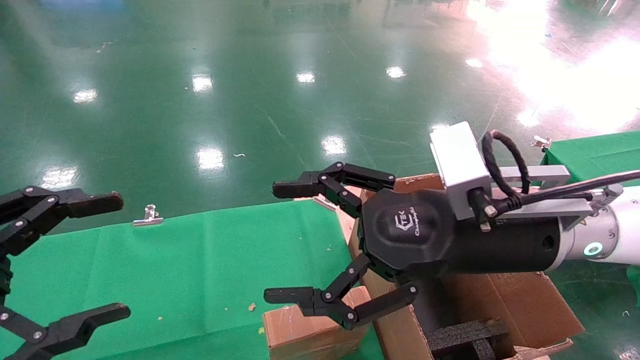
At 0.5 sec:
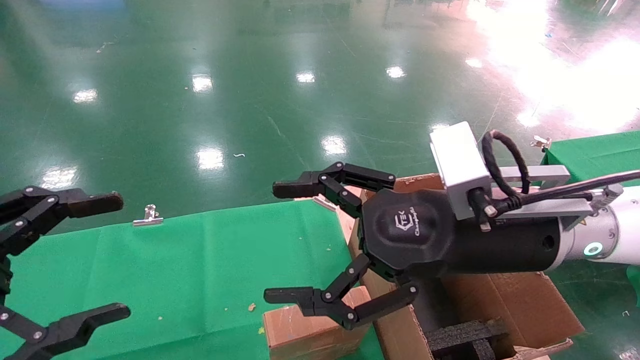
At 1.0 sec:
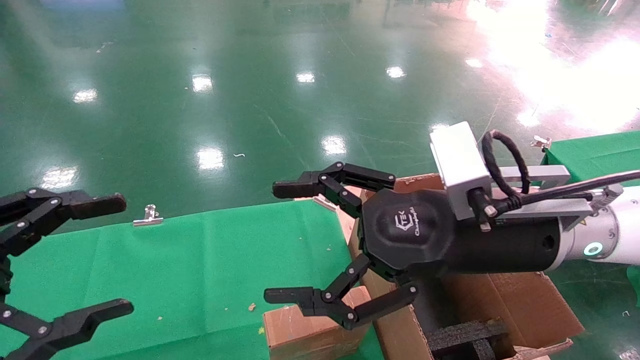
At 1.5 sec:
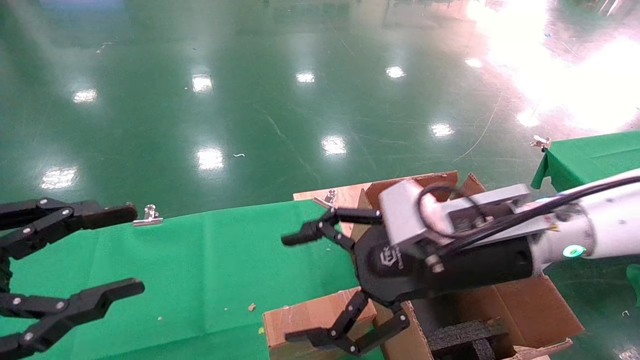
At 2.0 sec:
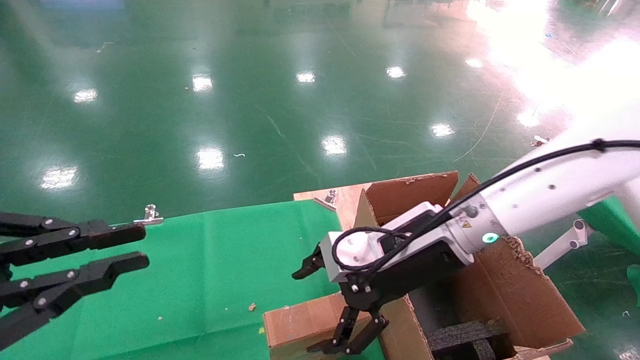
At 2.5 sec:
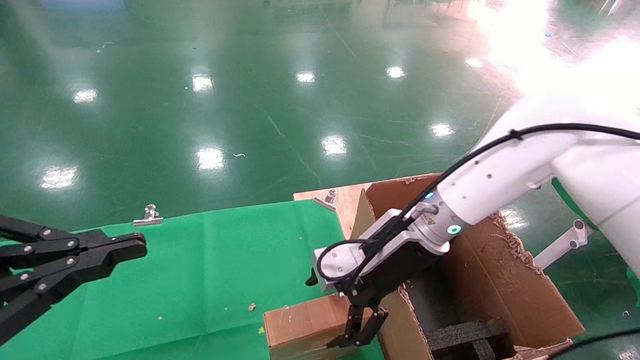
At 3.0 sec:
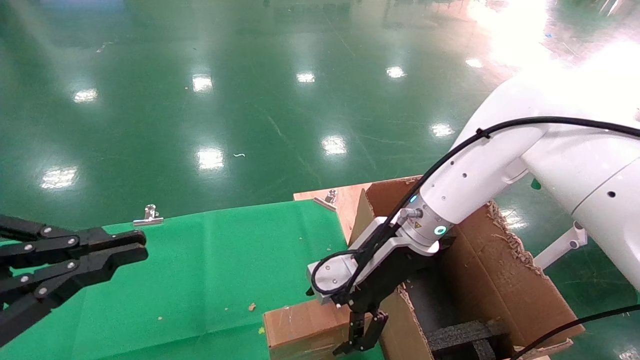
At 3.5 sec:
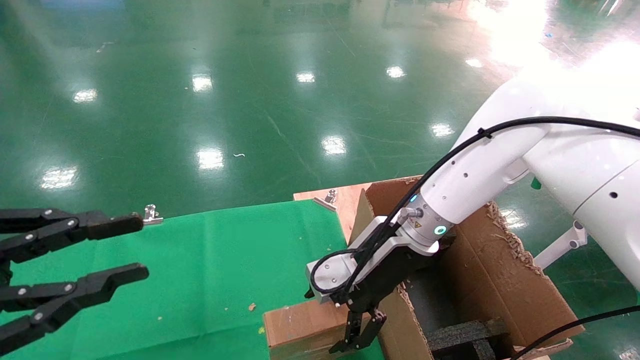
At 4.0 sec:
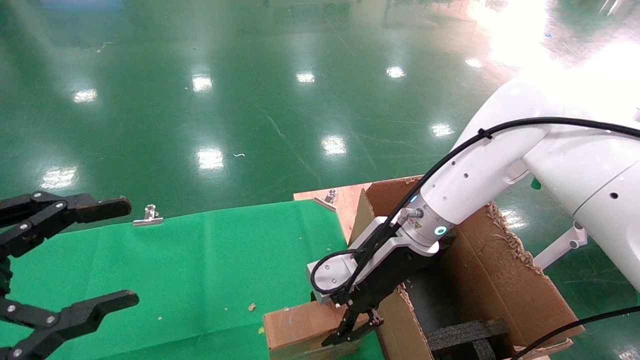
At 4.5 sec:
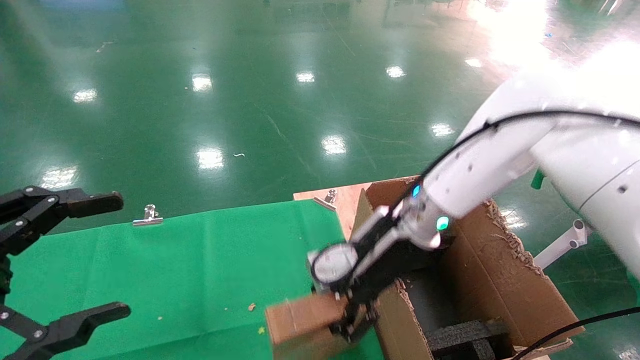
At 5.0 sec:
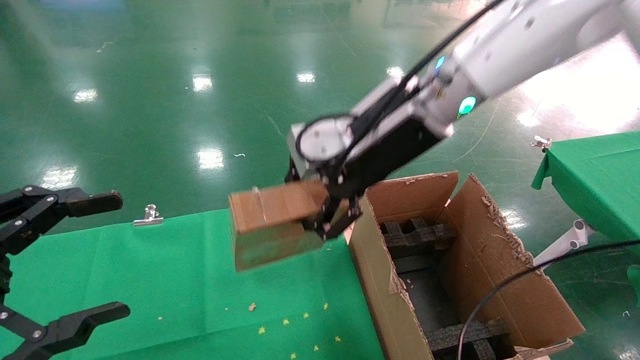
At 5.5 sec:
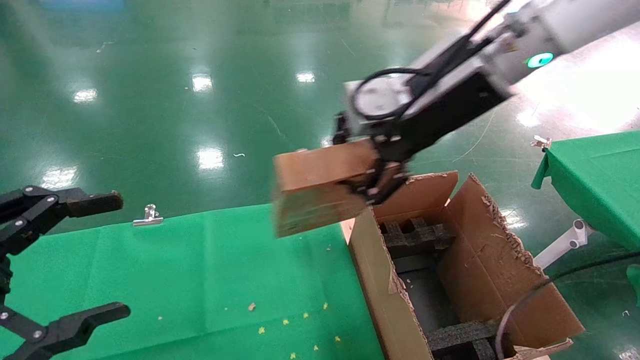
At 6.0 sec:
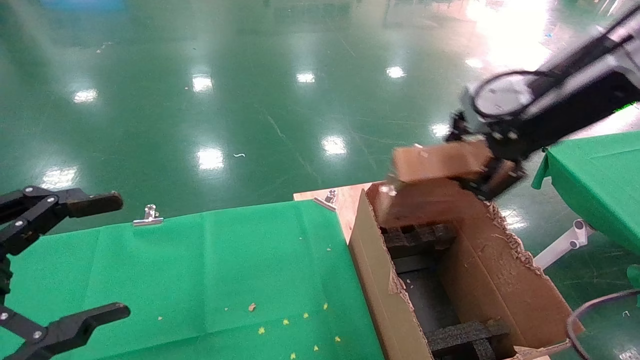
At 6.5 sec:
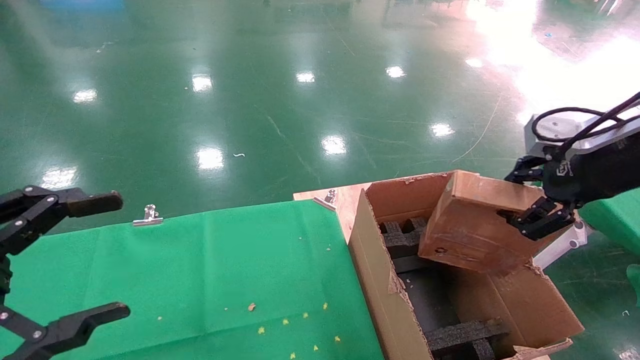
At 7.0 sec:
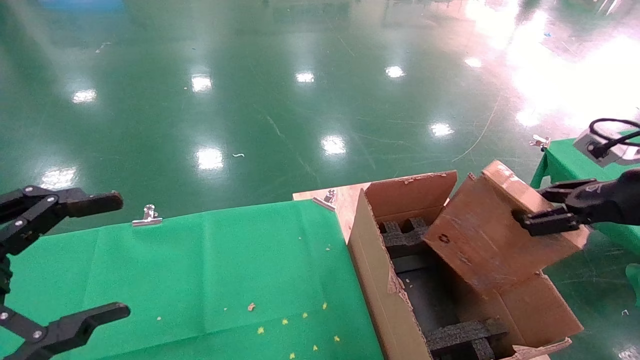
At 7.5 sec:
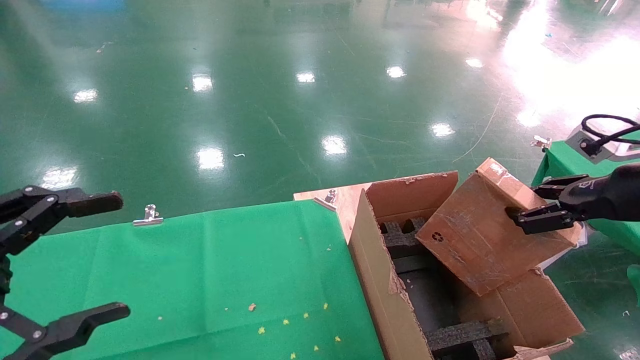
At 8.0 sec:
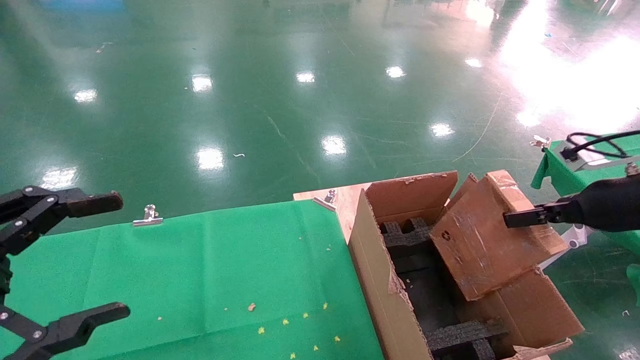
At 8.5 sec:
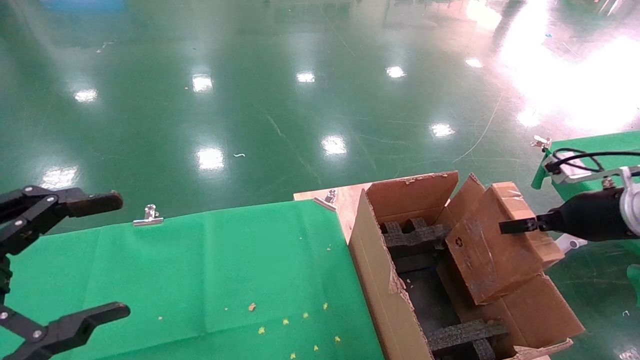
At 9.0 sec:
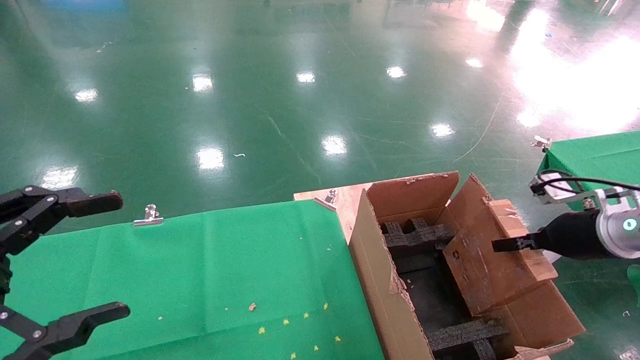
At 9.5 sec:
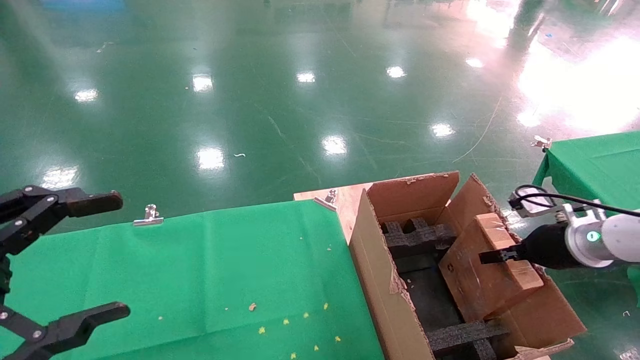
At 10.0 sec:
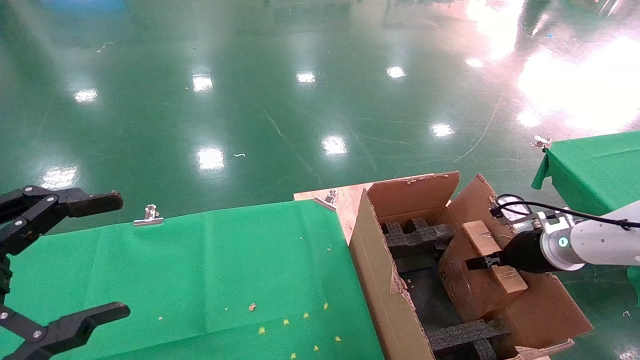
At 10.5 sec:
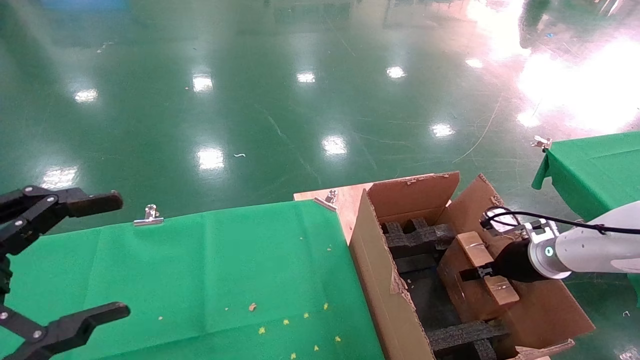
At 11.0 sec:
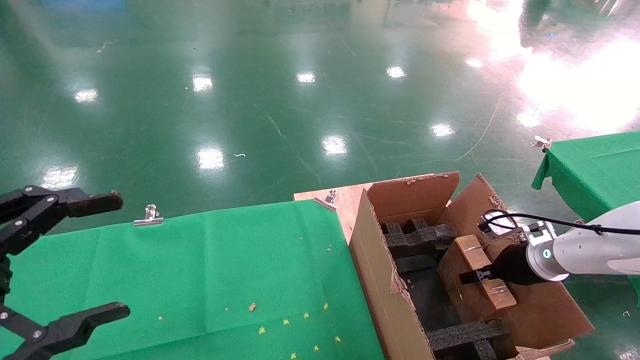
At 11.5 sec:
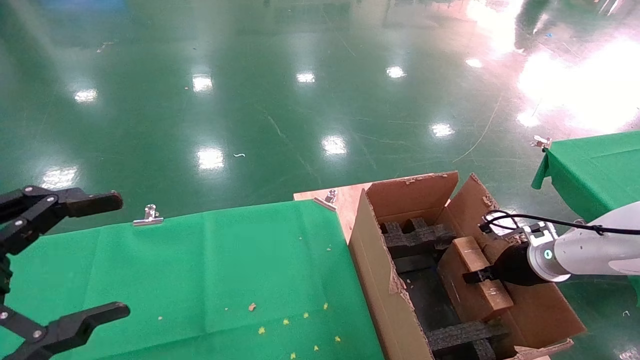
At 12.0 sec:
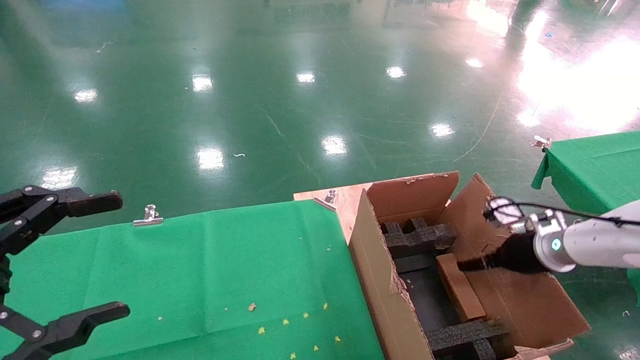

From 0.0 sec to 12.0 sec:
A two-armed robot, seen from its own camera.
Task of the whole recording: using a robotic arm to pick up a cardboard box and palace it the carton.
Step, from 1.5 sec to 4.0 sec: Pick up the mouse and the power cord paper box.
From 0.0 sec to 2.0 sec: The right gripper moves forward, roughly 5 cm; the left gripper closes its fingers.
From 2.0 sec to 4.0 sec: The right gripper moves forward, approximately 5 cm, and closes, while the left gripper closes, then opens again.
From 4.0 sec to 6.0 sec: The right gripper is displaced upward and to the right by roughly 25 cm, and closes.
From 6.0 sec to 8.0 sec: The right gripper heads to the right and downward, covering some 25 cm.
From 8.0 sec to 10.0 sec: The right gripper shifts some 15 cm downward and forward.
From 10.0 sec to 12.0 sec: The right gripper opens its fingers.

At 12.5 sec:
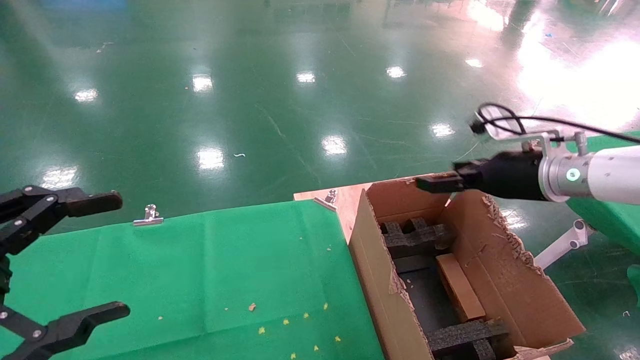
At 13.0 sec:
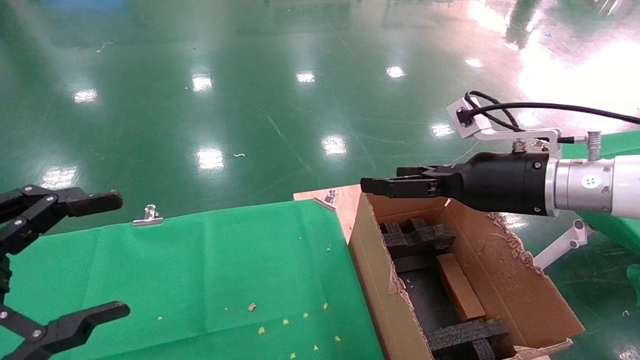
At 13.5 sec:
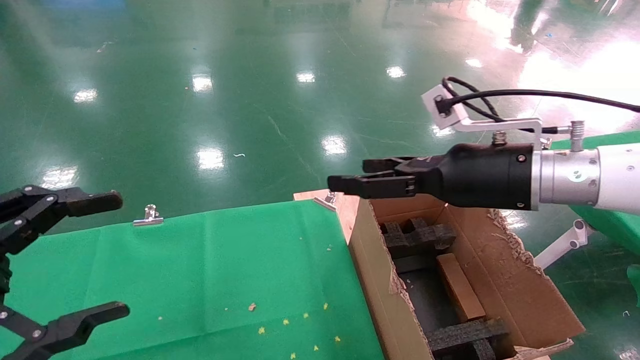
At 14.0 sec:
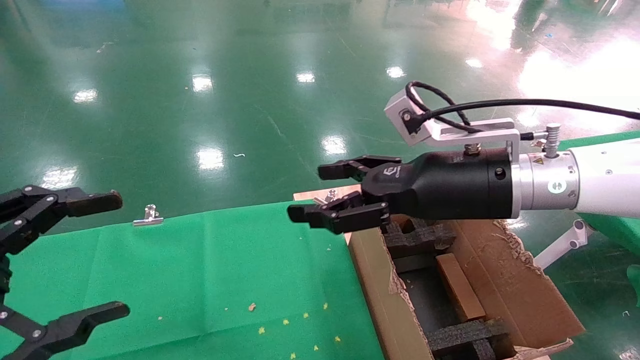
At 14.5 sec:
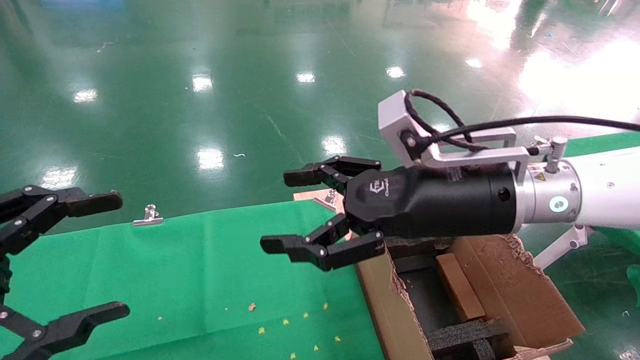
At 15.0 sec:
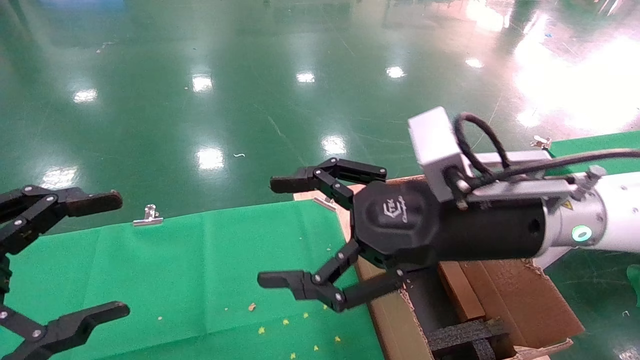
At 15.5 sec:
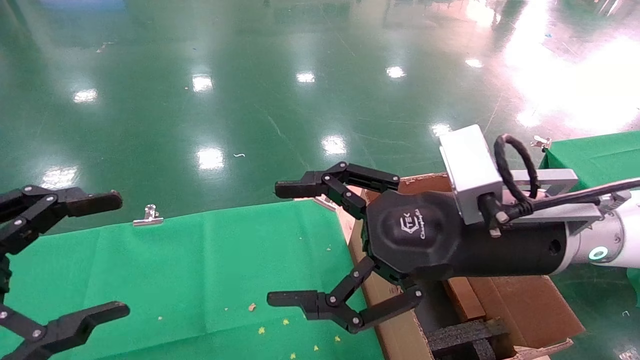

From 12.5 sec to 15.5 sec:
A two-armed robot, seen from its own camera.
Task of the whole recording: using a robotic arm to pick up a cardboard box and palace it the carton.
From 12.5 sec to 14.0 sec: The right gripper travels to the left and backward by approximately 15 cm.
From 14.0 sec to 15.5 sec: The right gripper travels backward by about 5 cm.
